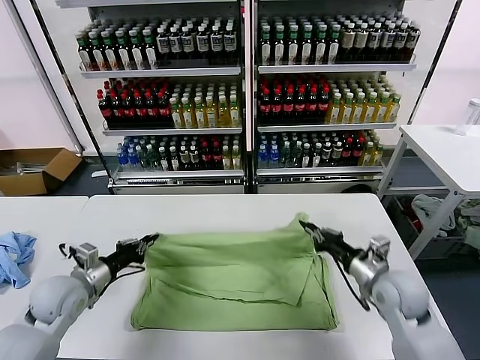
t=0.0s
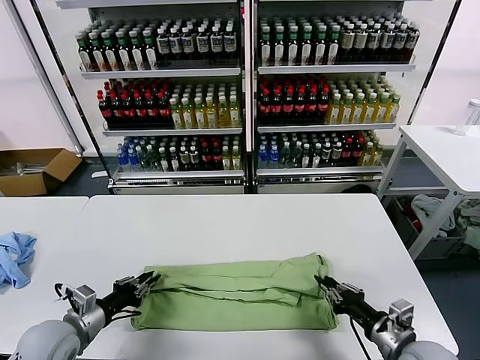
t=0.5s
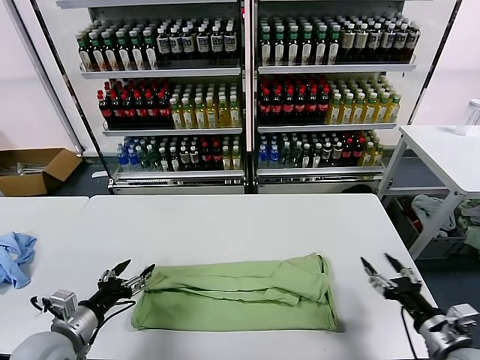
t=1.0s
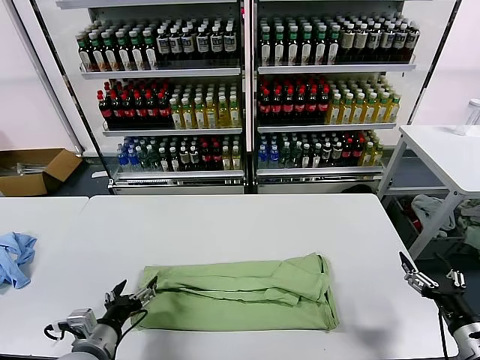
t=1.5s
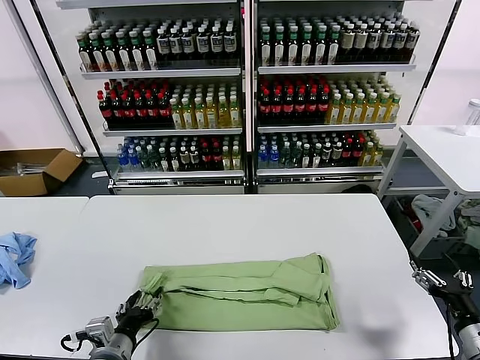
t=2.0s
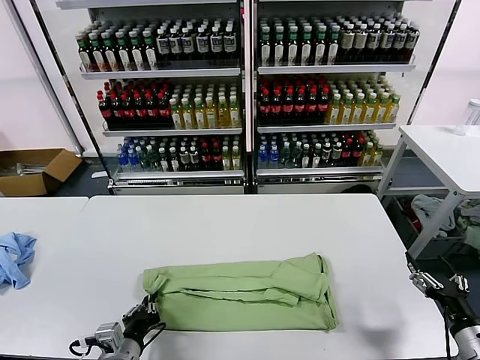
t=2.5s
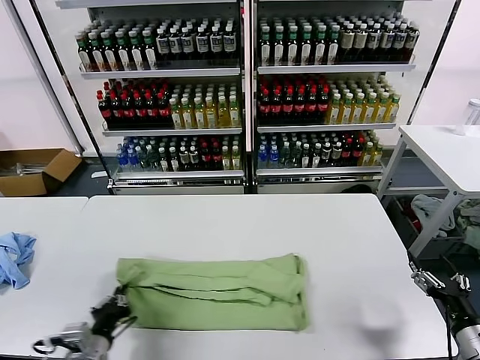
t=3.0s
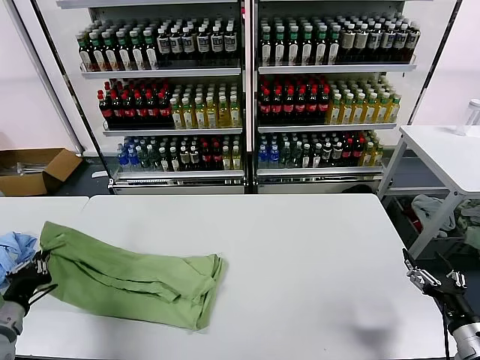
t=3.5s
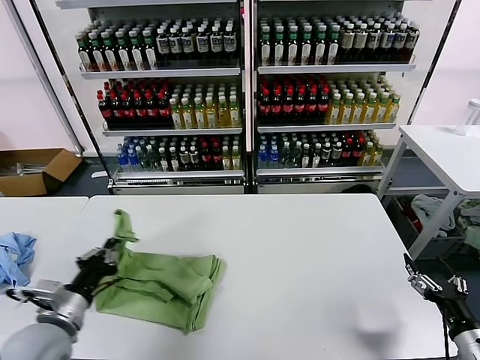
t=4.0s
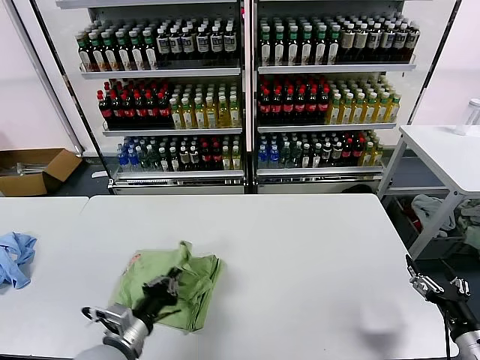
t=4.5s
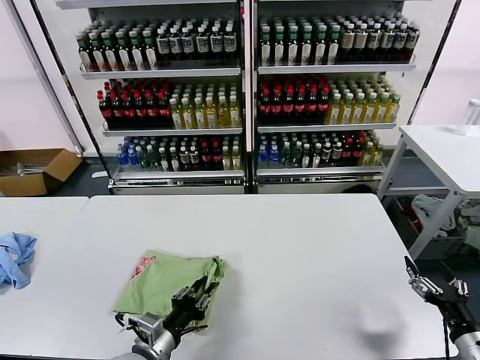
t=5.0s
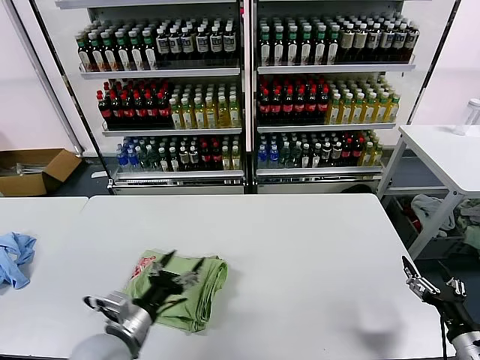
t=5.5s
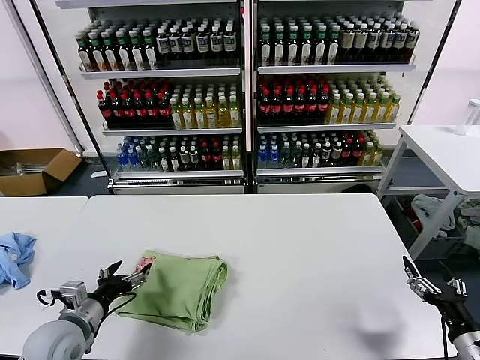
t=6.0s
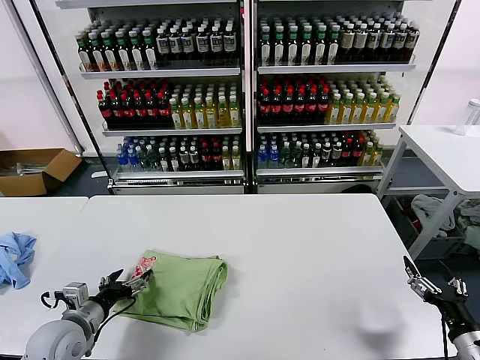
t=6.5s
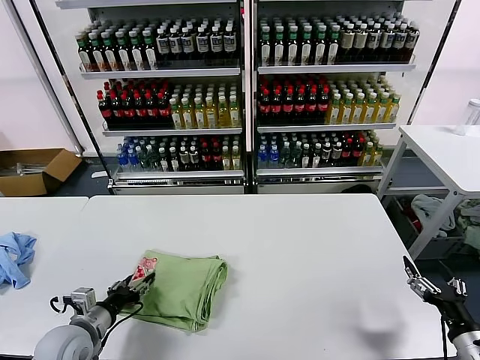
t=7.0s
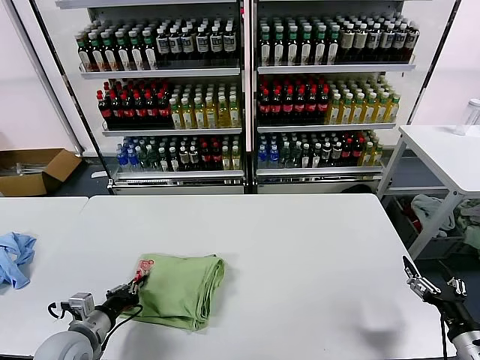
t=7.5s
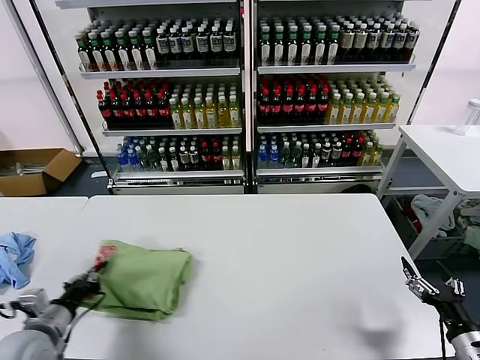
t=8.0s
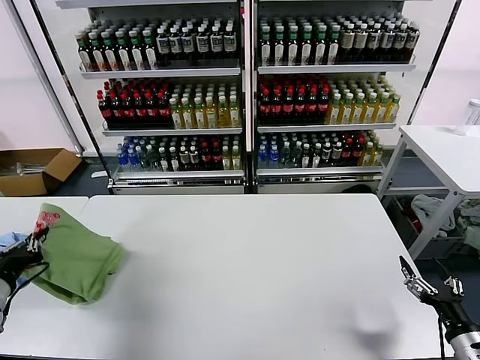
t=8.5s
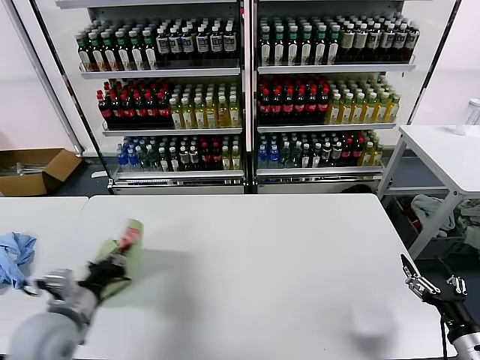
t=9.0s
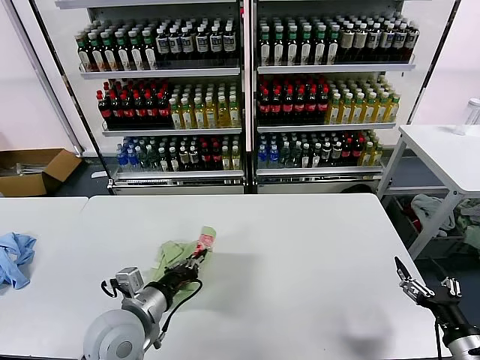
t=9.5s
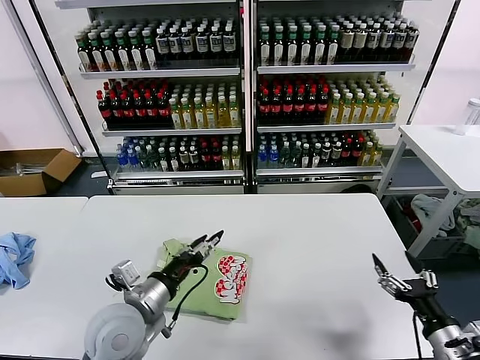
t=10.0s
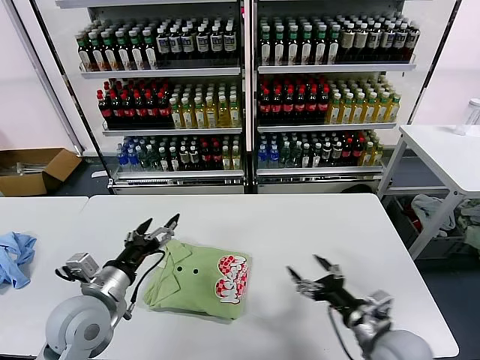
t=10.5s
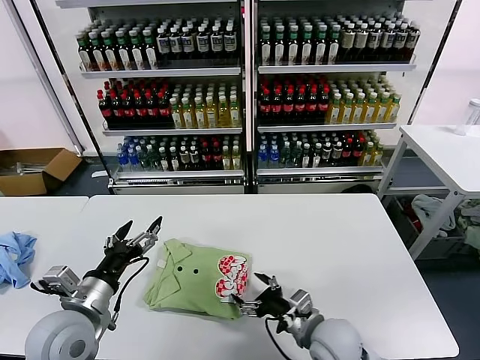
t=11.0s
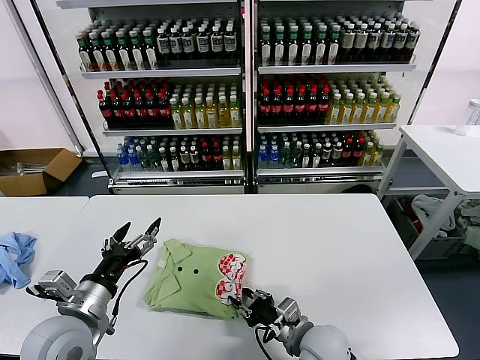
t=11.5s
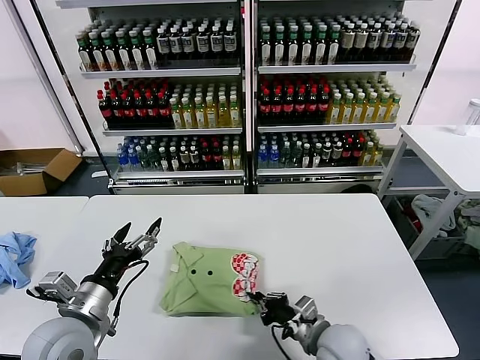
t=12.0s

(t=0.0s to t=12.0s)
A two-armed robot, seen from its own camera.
Task of the whole recording: fold and organize the clothes.
Step, t=1.0s - t=2.5s: use the left gripper to clamp the left edge of the fabric.
Step, t=3.0s - t=5.0s: use the left gripper to drag the left edge of the fabric to the left and folds it over the right edge.
Step, t=5.5s - t=9.5s: Flip the folded clothes over with left gripper.
t=0.0s - t=2.0s: The two grippers go roughly 20 cm backward and to the right. The left gripper opens its fingers, while the right gripper opens up.
t=2.0s - t=4.0s: The left gripper goes roughly 10 cm upward and to the left, and closes.
t=4.0s - t=6.0s: The left gripper heads downward, covering some 5 cm, travels to the right and back again, approximately 15 cm each way, and opens up.
t=6.0s - t=8.0s: The left gripper ends up about 5 cm from where it was, and closes its fingers.
t=8.0s - t=10.0s: The right gripper changes place by about 5 cm; the left gripper is displaced to the right by about 20 cm, and opens.
t=10.0s - t=12.0s: The right gripper travels to the left and forward by approximately 20 cm, and closes its fingers, while the left gripper travels to the left by roughly 10 cm, and opens up.

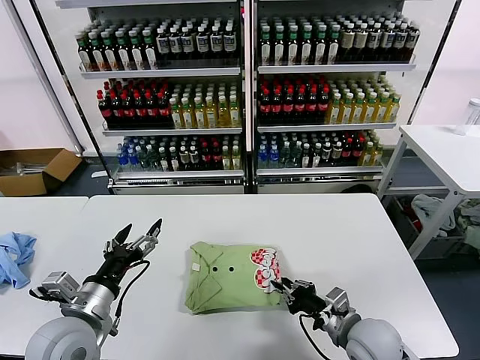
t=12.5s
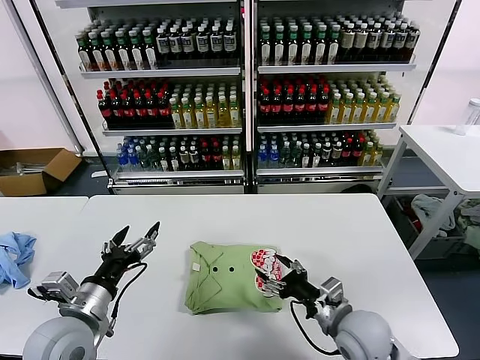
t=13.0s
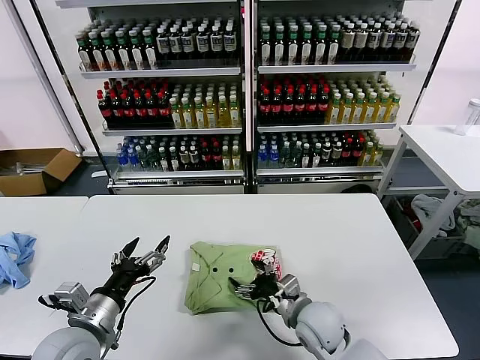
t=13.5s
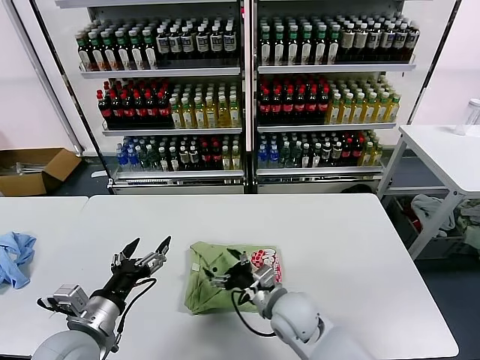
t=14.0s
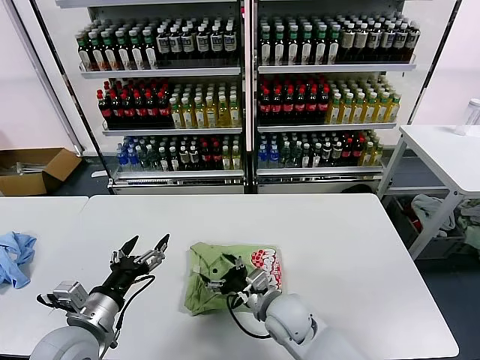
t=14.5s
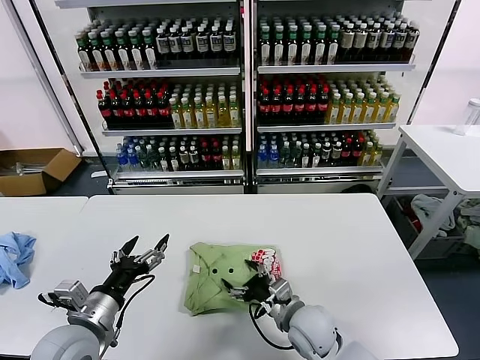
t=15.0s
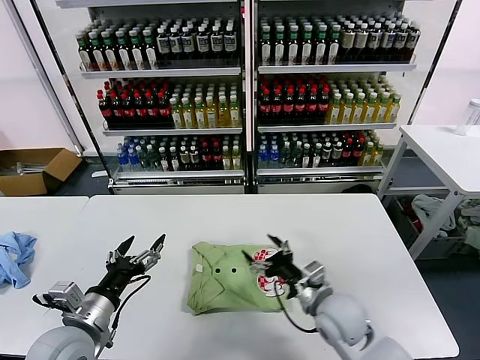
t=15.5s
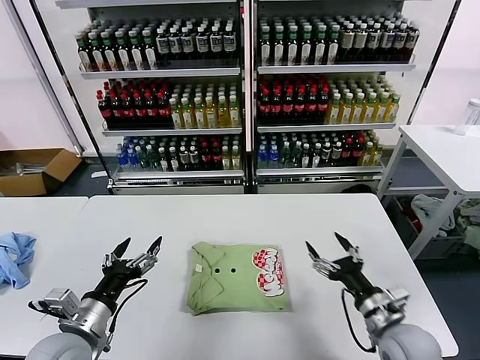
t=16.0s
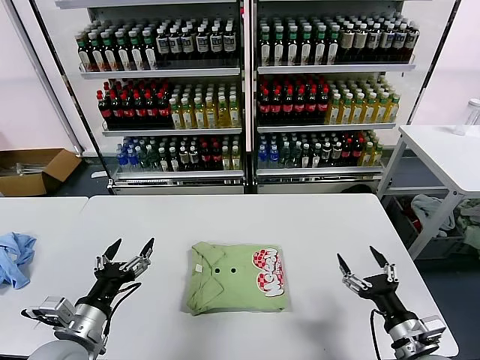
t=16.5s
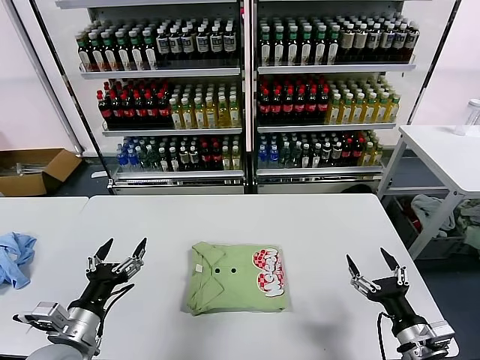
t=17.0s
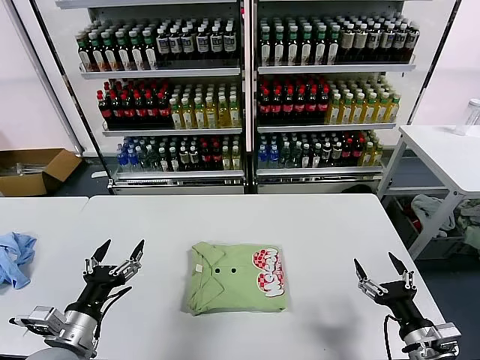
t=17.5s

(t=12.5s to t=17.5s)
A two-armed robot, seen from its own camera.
Task of the whole recording: fold and organize the clothes.
Step, t=12.5s - t=15.0s: Drag the clothes to the center of the table.
t=12.5s - t=15.0s: The right gripper heads to the left, covering approximately 10 cm, and opens.
t=15.0s - t=17.5s: The left gripper ends up about 5 cm from where it was. Meanwhile the right gripper shifts some 25 cm to the right and backward.
